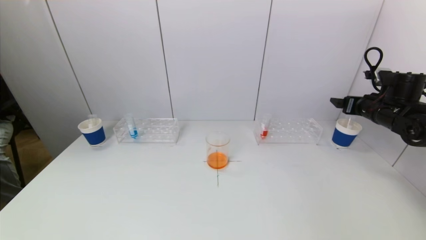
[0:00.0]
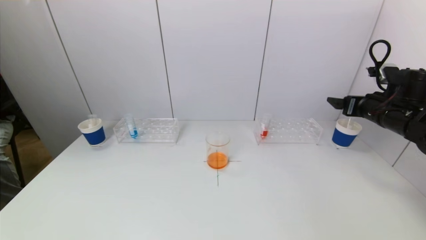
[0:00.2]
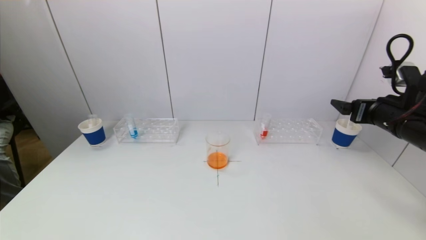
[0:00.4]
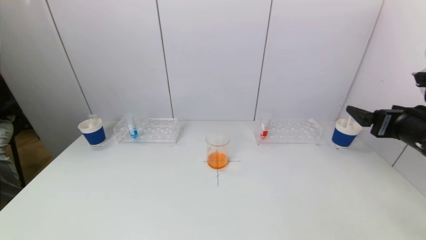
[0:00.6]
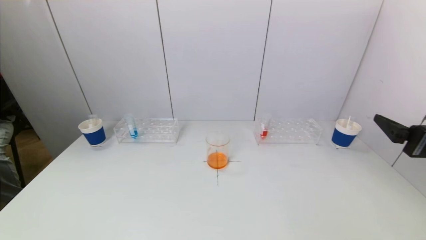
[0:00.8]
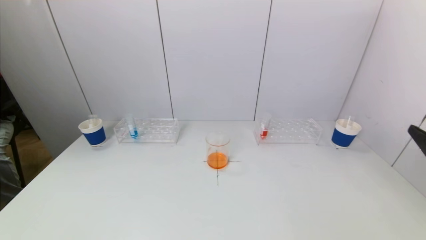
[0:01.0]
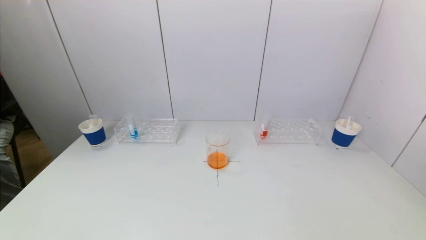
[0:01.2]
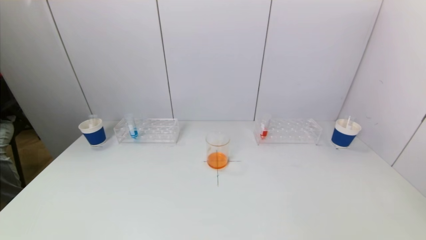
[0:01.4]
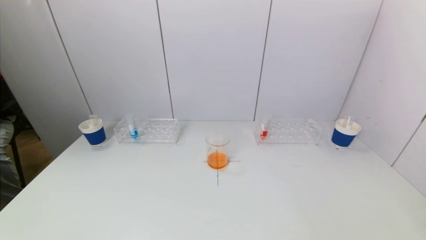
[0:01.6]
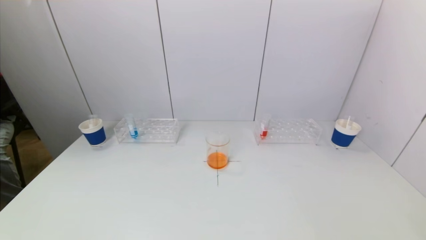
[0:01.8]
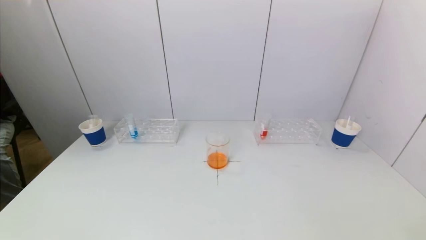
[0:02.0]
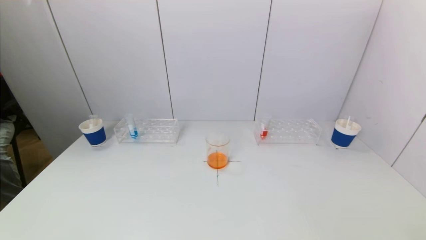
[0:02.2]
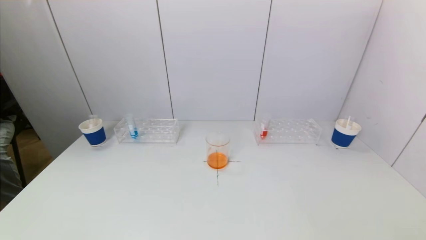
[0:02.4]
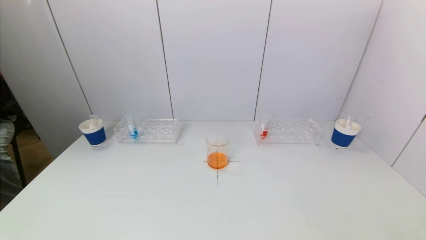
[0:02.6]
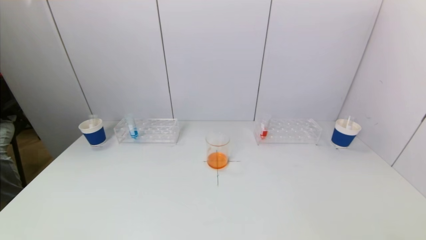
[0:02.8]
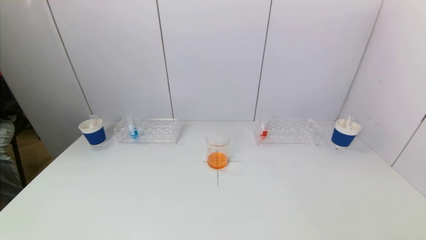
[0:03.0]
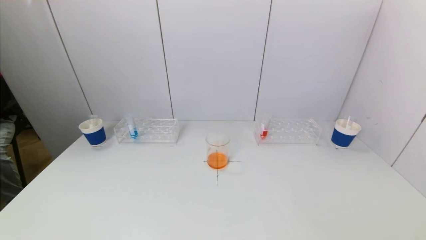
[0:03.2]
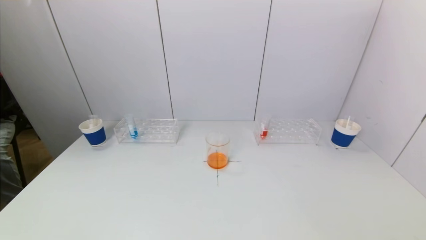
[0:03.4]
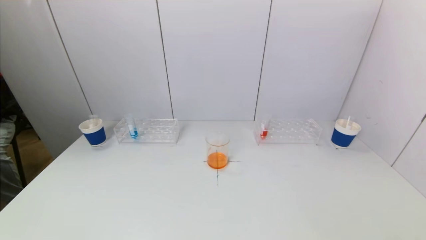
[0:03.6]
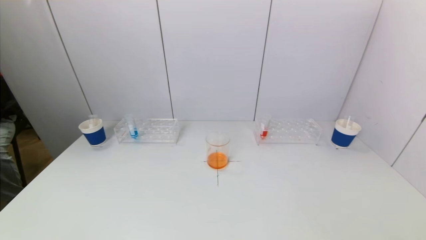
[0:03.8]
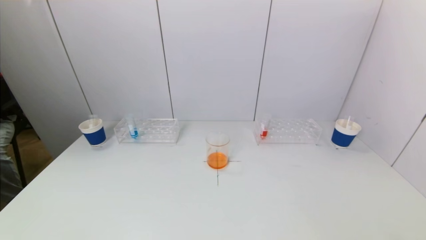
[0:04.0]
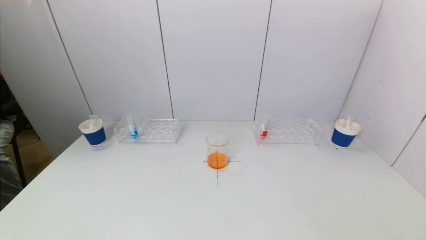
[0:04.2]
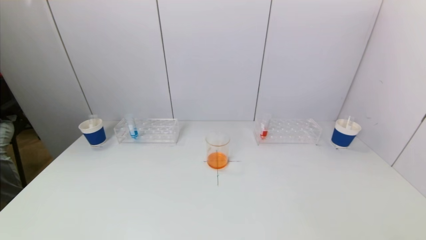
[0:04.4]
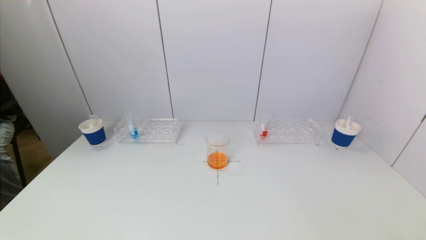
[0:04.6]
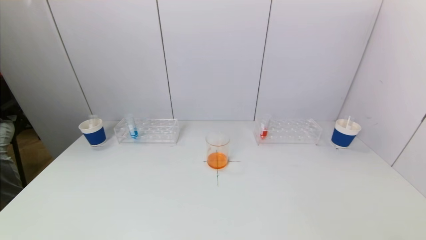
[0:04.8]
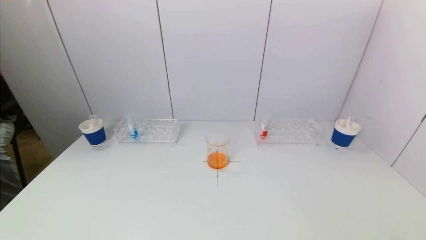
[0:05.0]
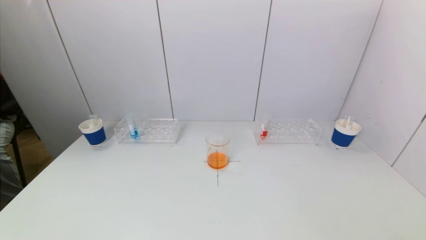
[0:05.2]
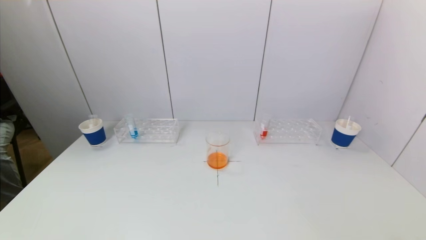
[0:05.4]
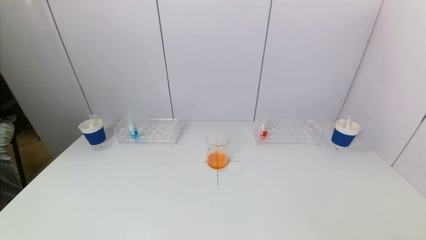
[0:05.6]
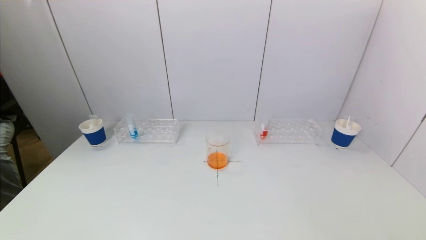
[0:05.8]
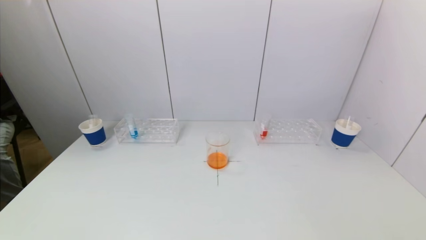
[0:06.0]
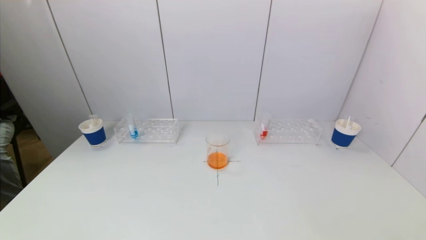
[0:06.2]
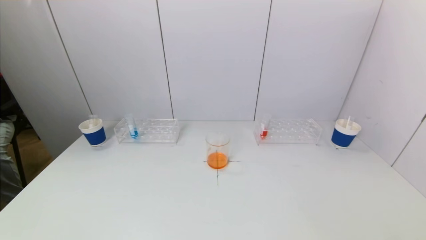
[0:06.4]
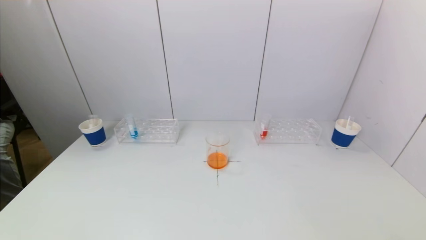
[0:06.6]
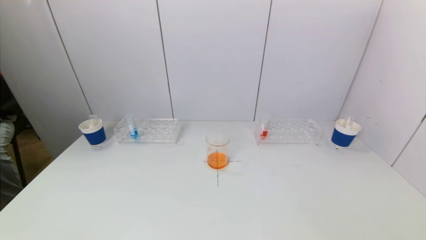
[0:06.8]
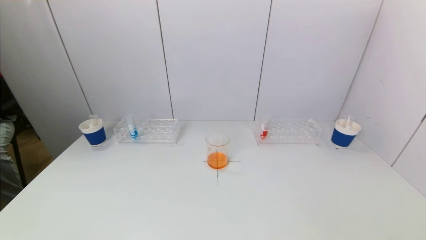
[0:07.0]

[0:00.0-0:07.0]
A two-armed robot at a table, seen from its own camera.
Task of the whole recording: pick up a test tube with pigment on left test tube rack and a test tube with pigment on right test tube rack by grippers and pour them into the beaker.
0:00.0 to 0:01.4: The right gripper shifts roughly 35 cm backward.
0:04.2 to 0:07.0: Neither gripper changes place.
